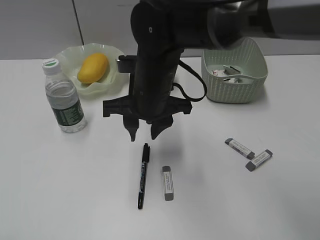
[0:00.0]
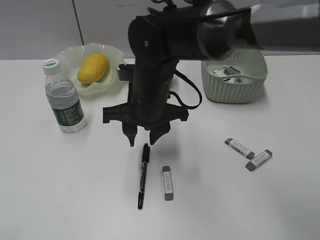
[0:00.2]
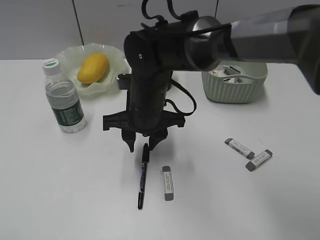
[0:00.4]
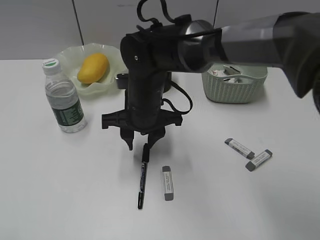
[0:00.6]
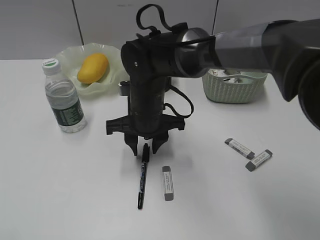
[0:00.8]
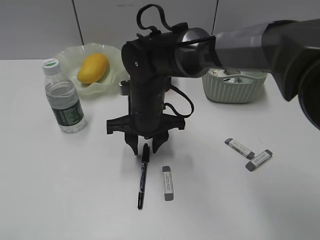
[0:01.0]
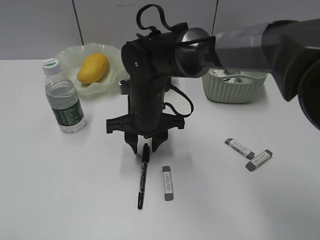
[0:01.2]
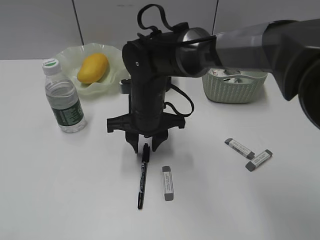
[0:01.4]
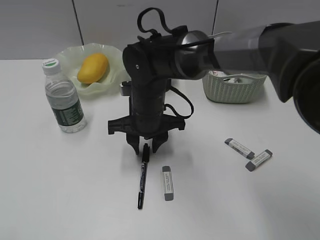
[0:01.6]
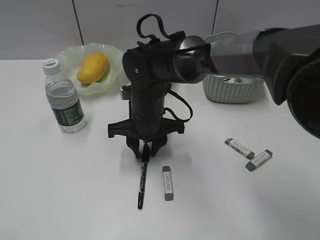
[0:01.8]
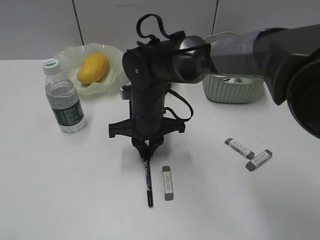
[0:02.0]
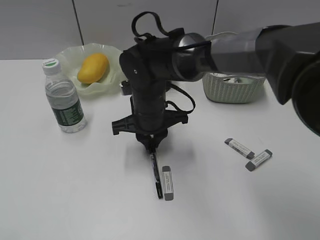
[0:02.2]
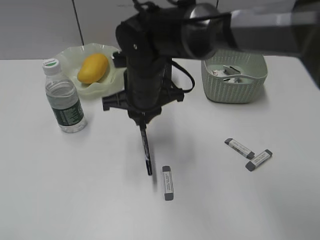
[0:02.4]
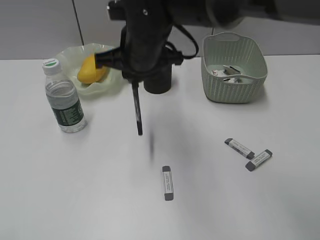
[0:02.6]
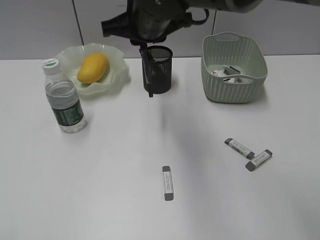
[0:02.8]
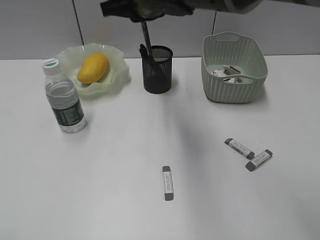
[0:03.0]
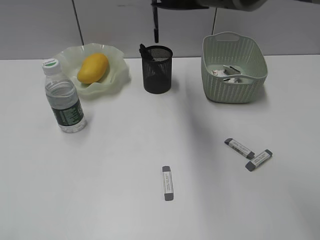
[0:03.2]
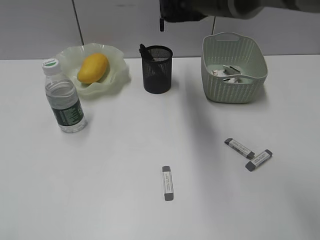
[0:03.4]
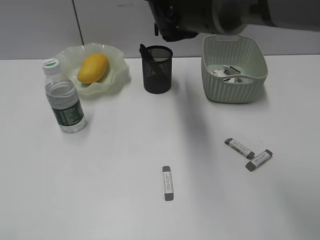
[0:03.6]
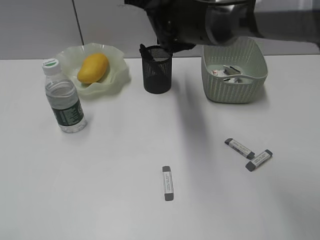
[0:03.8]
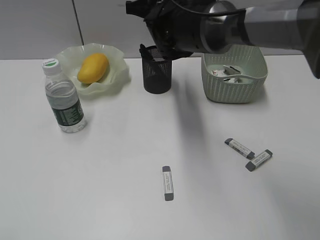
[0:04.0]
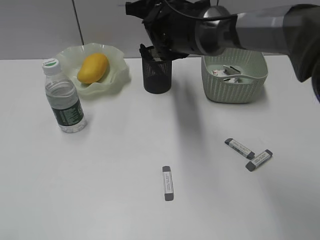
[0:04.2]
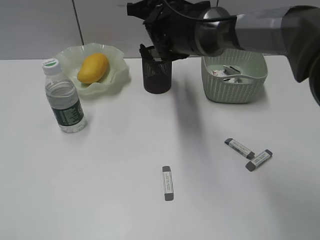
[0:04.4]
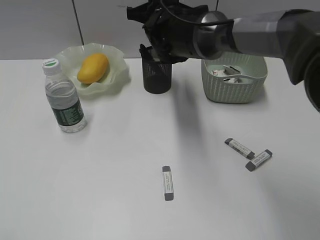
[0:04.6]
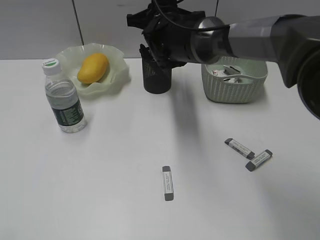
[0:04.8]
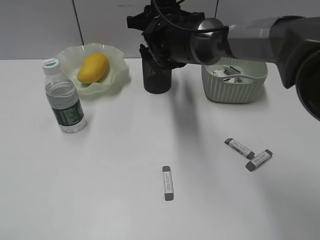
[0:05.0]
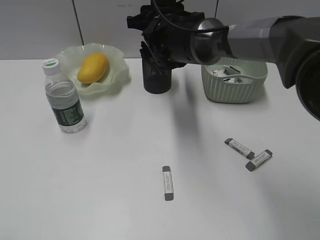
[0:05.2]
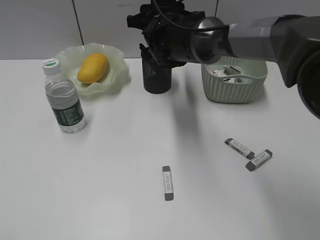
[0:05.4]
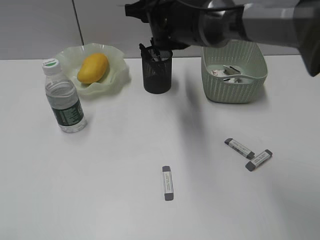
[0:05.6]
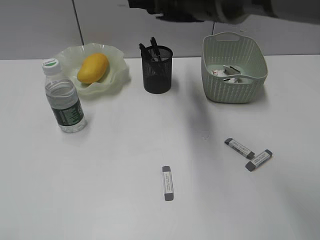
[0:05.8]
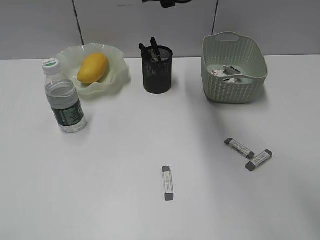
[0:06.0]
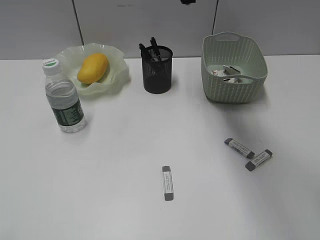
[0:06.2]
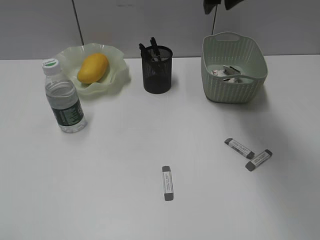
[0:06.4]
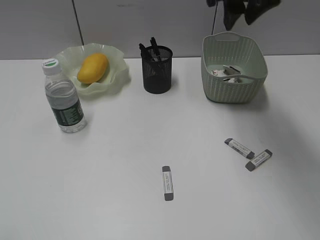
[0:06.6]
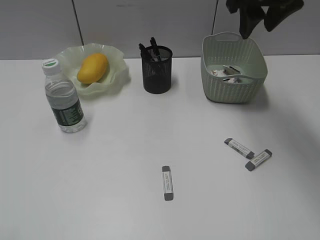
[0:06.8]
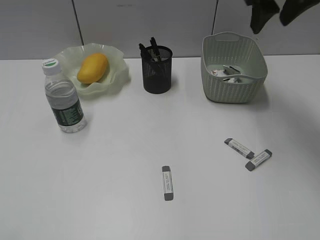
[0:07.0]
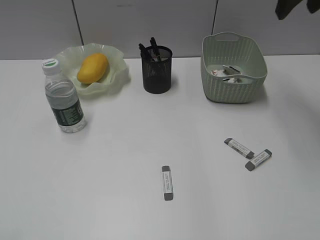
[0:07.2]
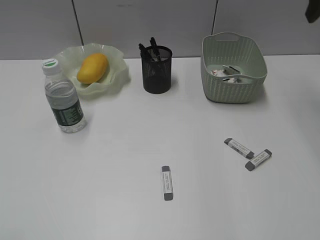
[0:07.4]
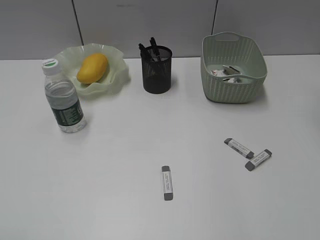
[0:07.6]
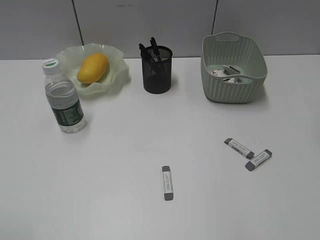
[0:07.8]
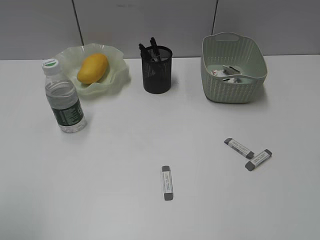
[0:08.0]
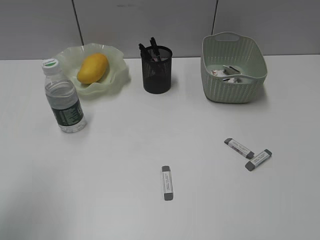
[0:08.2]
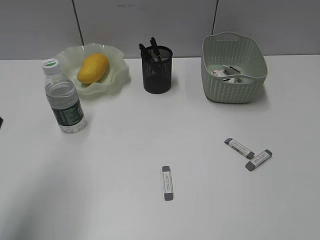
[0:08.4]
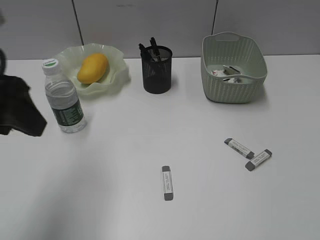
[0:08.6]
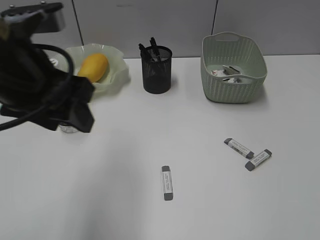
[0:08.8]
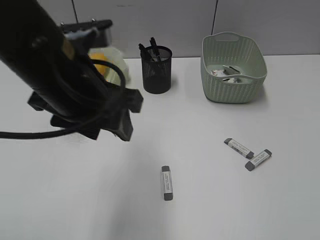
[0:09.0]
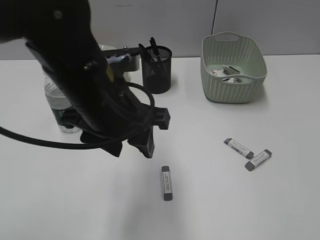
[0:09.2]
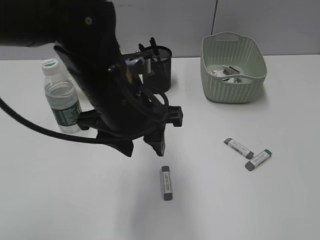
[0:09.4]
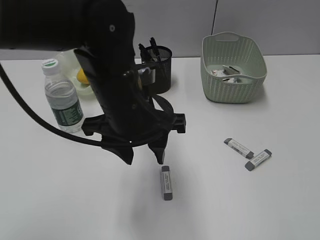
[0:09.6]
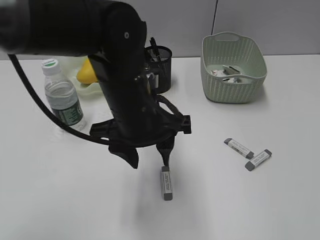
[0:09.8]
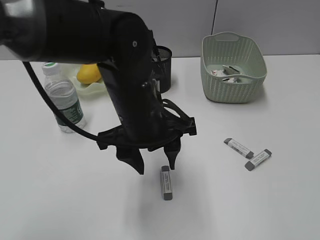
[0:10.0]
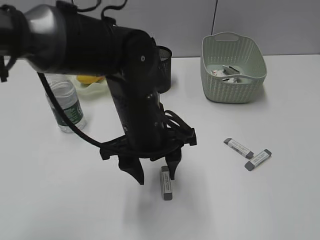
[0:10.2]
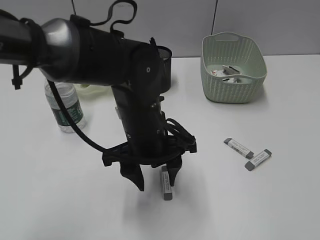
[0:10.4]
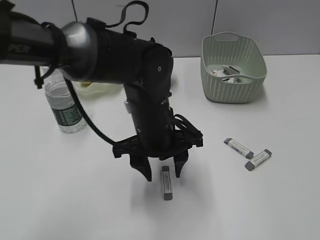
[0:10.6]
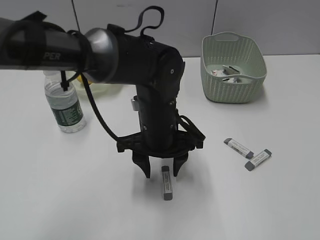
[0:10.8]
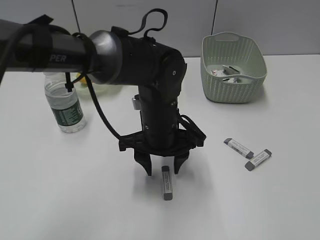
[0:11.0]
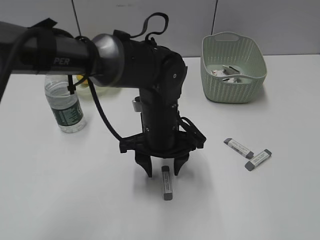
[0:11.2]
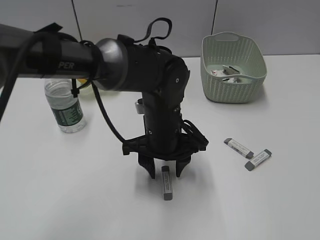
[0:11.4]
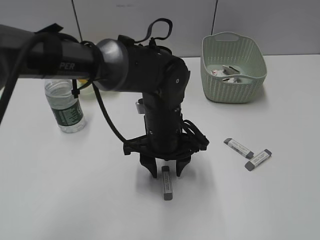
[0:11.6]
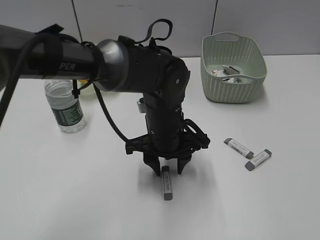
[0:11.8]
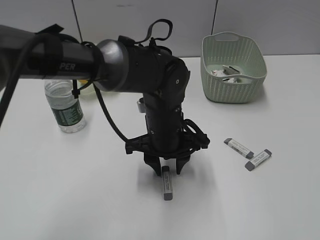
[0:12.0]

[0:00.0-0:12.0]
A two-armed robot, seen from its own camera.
Step, 0:00.0 to 0:02.0: Grasp the black pen with right gripper.
Step, 0:02.2 to 0:05.4: Place the black pen in pen holder with right gripper.
0:00.0 to 0:01.6: The right gripper is displaced downward by some 5 cm.
0:01.6 to 0:03.0: The right gripper goes approximately 15 cm upward, and closes its fingers.
0:03.0 to 0:04.4: The right gripper is displaced forward and downward by about 10 cm.
0:04.4 to 0:06.0: The right gripper is displaced upward by some 10 cm, and opens up.
0:06.0 to 0:07.6: The right gripper shifts about 25 cm to the right.
0:07.6 to 0:09.0: The left gripper moves forward and to the right, some 30 cm. The right gripper moves backward, some 30 cm.
0:09.0 to 0:10.4: The right gripper goes about 5 cm backward, while the left gripper moves downward and to the right, some 15 cm.
0:10.4 to 0:12.0: The left gripper moves some 5 cm.

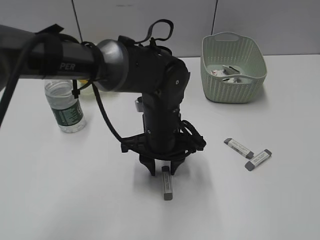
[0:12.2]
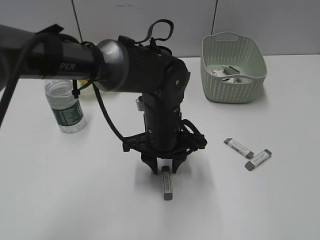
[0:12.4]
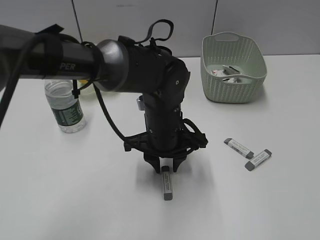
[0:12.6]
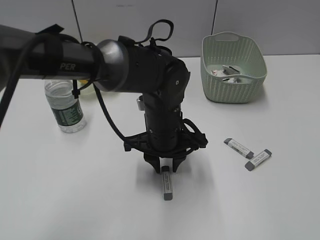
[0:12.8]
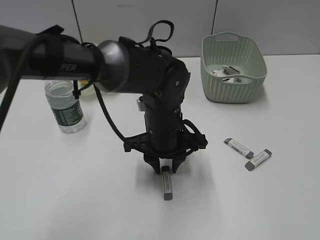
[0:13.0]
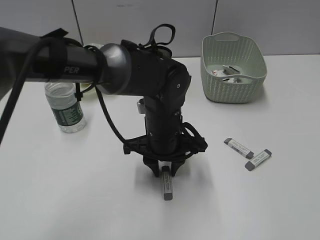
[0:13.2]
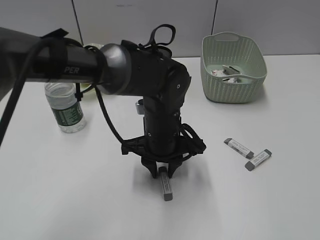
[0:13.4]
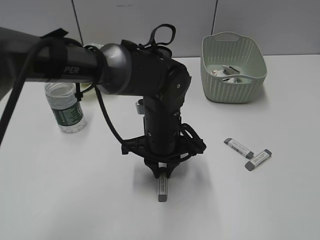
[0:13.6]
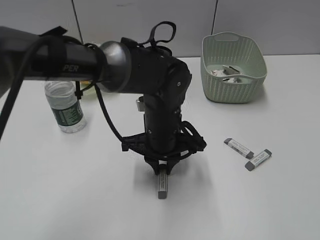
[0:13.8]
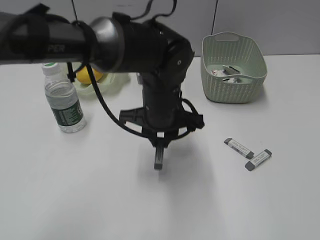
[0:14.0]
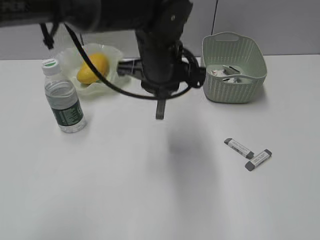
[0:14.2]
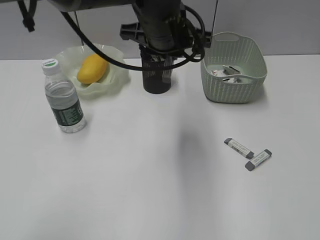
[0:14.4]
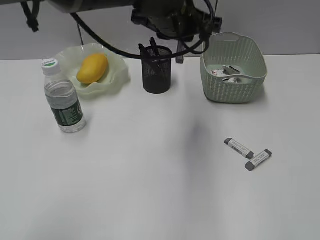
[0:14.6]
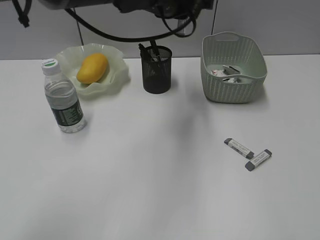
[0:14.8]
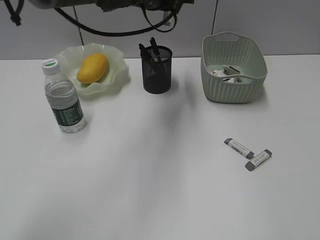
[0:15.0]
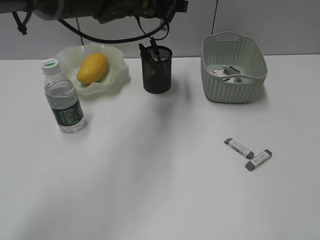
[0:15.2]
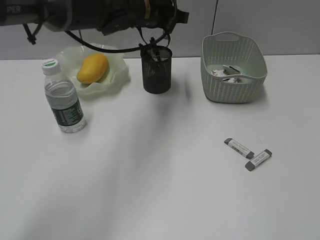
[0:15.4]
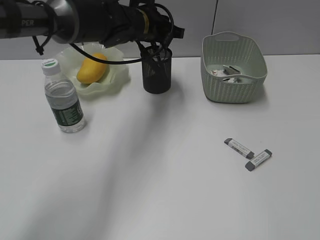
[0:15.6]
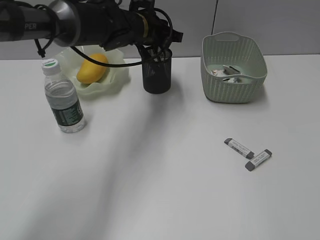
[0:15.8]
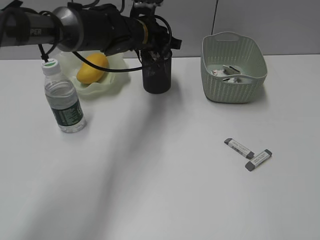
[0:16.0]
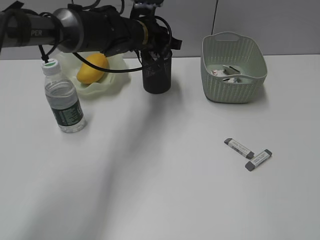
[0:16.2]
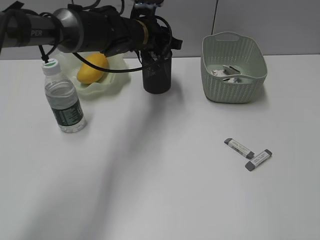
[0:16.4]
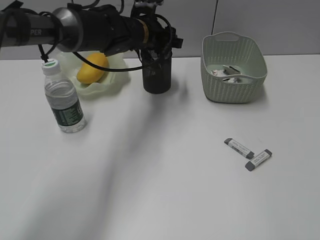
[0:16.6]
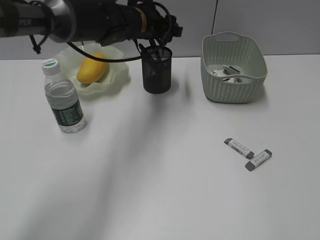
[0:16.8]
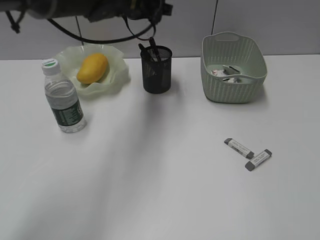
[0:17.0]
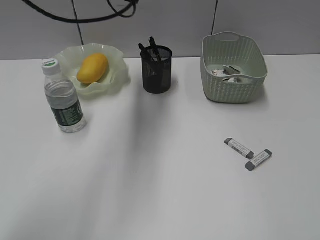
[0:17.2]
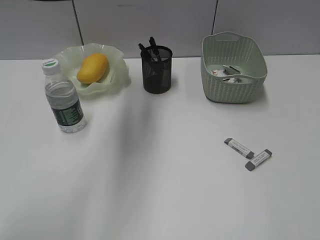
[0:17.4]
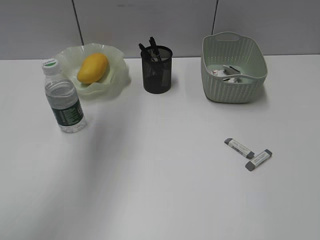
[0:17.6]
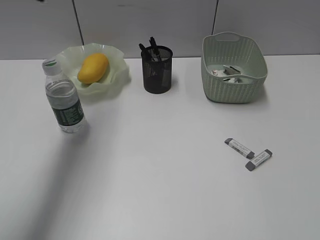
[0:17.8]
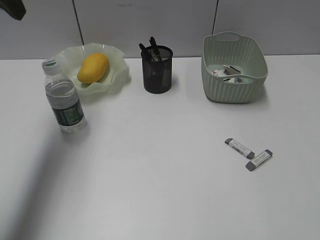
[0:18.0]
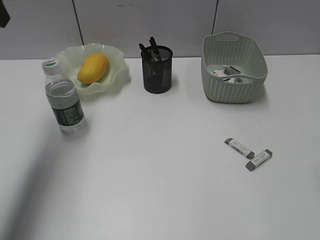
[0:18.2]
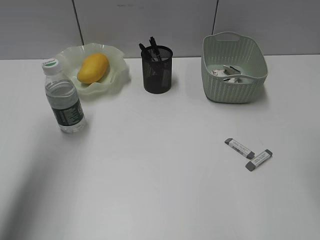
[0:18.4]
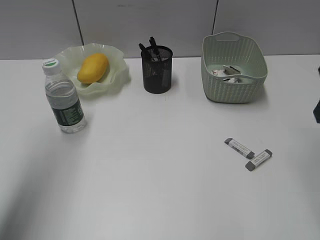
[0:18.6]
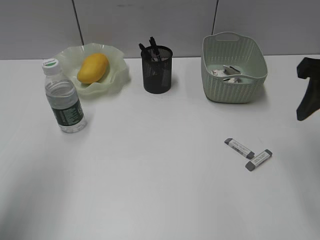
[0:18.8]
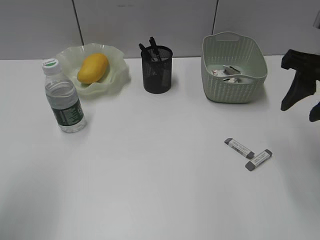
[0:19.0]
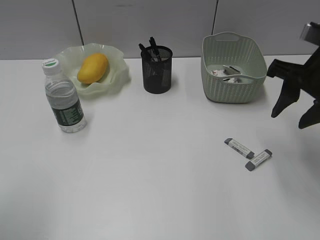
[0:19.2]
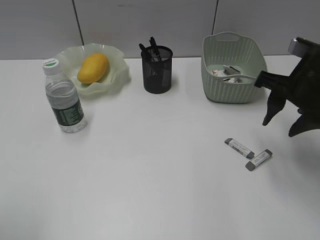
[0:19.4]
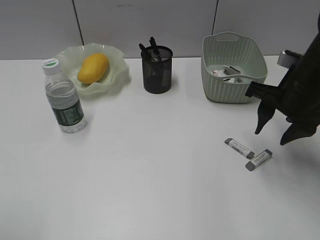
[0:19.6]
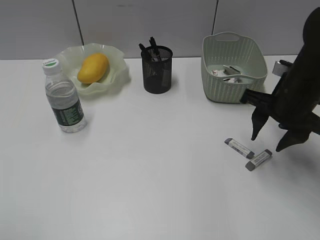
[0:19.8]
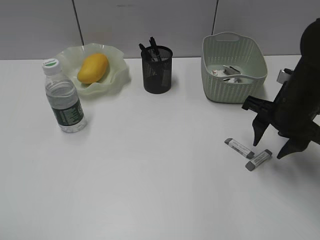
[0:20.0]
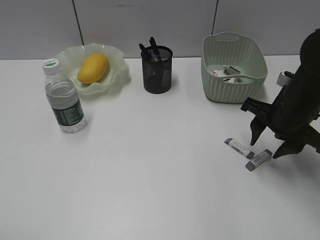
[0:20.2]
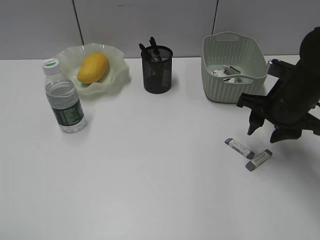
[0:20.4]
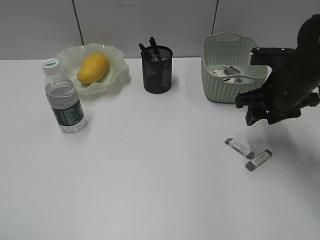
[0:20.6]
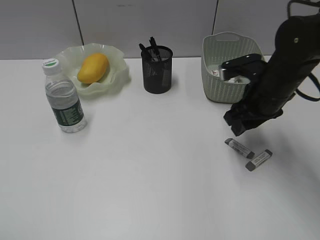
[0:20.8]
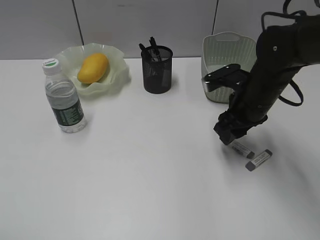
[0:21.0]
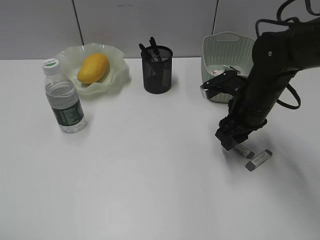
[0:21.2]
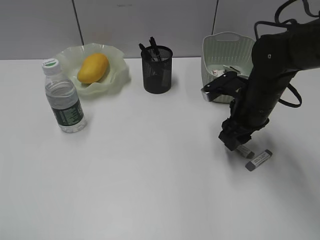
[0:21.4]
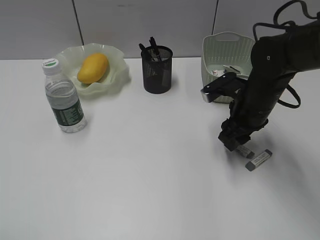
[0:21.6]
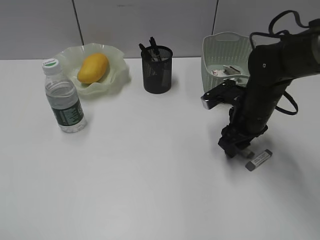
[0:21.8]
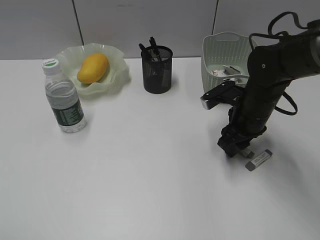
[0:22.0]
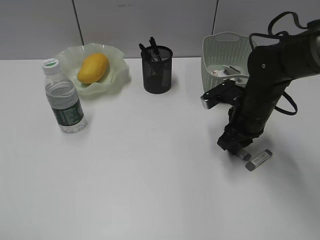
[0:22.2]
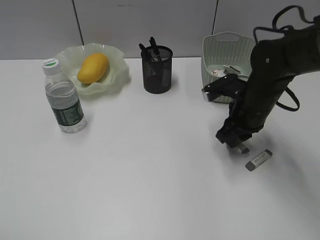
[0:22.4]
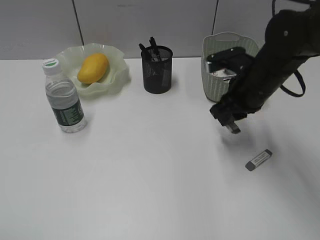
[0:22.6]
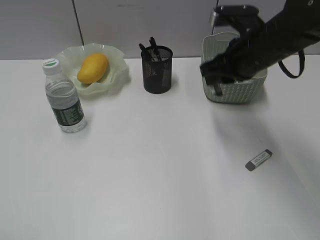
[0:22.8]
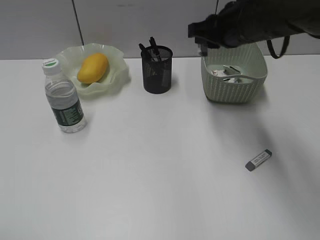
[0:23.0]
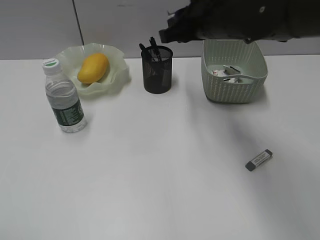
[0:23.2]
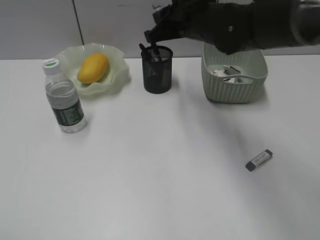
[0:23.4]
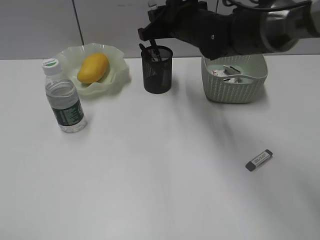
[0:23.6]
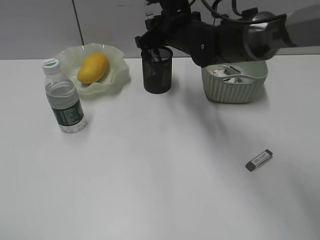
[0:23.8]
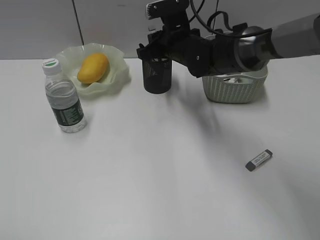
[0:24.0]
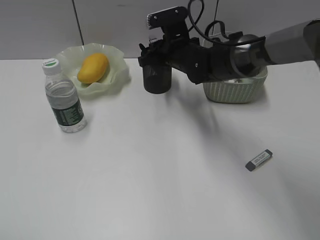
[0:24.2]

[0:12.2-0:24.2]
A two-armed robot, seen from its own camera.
Step, 0:13.8 to 0:16.8: Place the eraser in pen holder with left gripper.
Step, 0:17.0 to 0:22.2: Grasp the eraser with right gripper.
0:12.2 to 0:13.8: Neither gripper changes place.
0:13.8 to 0:15.2: The left gripper shifts some 20 cm upward and forward.
0:15.2 to 0:16.6: The left gripper travels downward by about 10 cm, and opens up.
0:16.6 to 0:18.2: The right gripper goes approximately 15 cm forward, while the left gripper moves to the left, upward and backward, roughly 35 cm.
0:18.2 to 0:19.8: The left gripper goes approximately 30 cm backward. The right gripper is displaced downward, forward and to the left by approximately 25 cm.
0:19.8 to 0:21.2: The right gripper ends up approximately 5 cm from where it was.
0:21.2 to 0:22.6: The right gripper closes its fingers.
0:22.6 to 0:24.2: The right gripper travels to the left and forward by roughly 15 cm.
